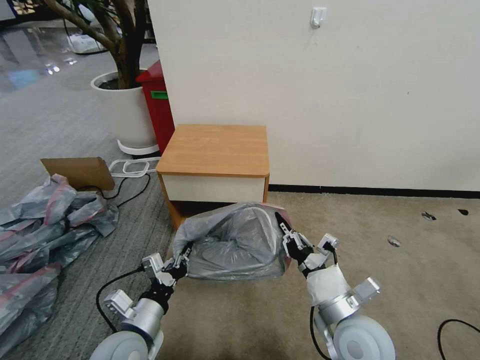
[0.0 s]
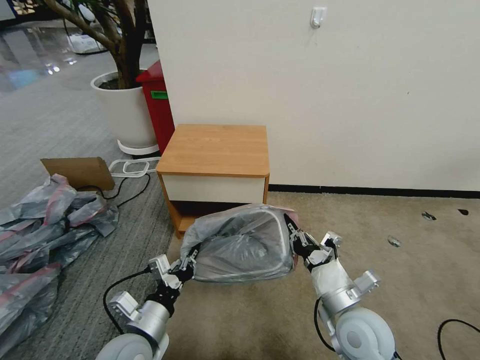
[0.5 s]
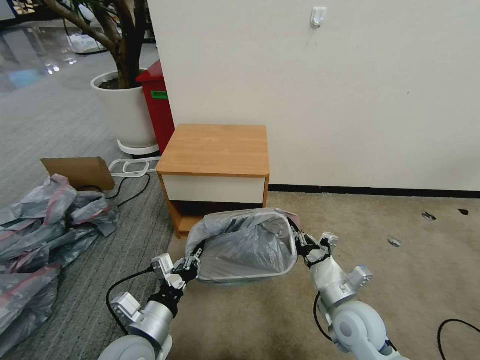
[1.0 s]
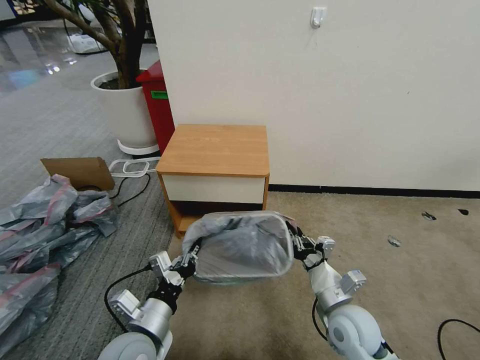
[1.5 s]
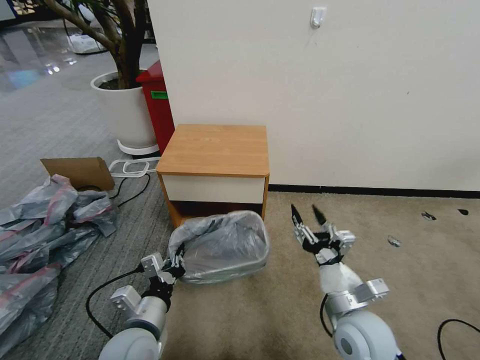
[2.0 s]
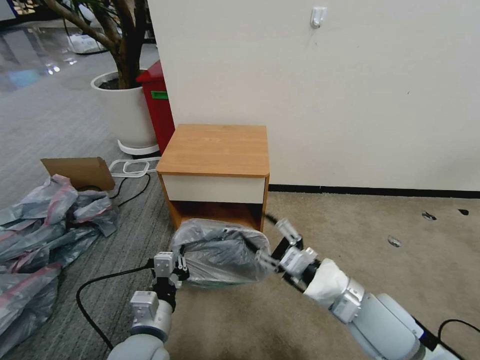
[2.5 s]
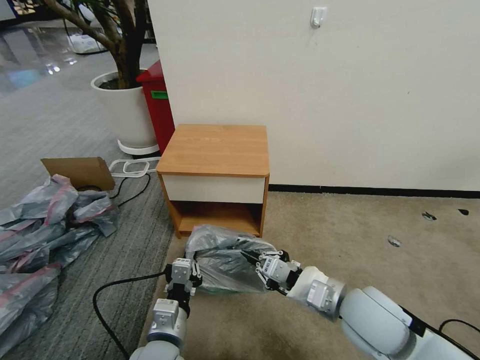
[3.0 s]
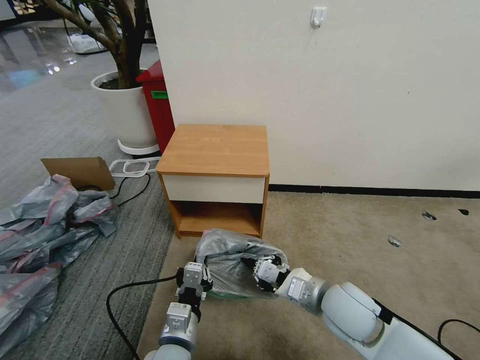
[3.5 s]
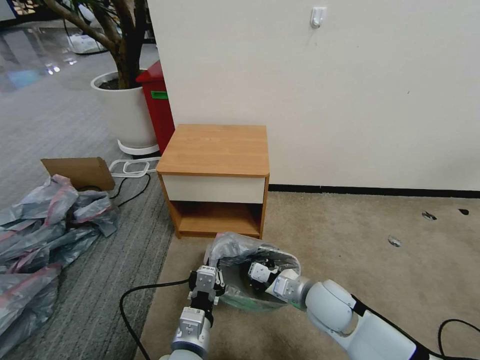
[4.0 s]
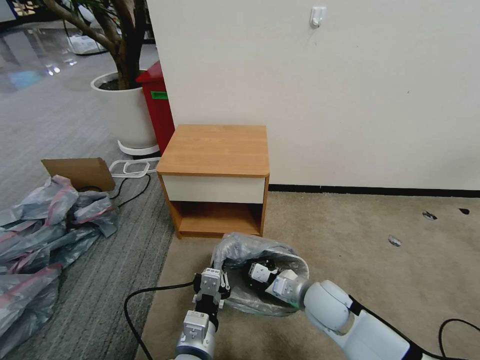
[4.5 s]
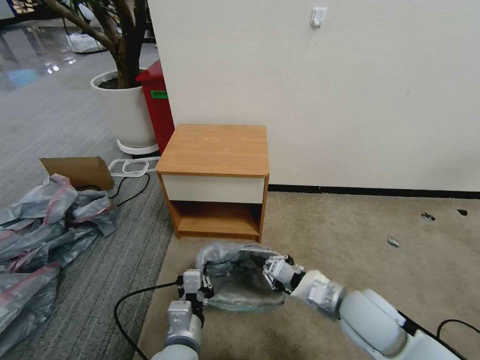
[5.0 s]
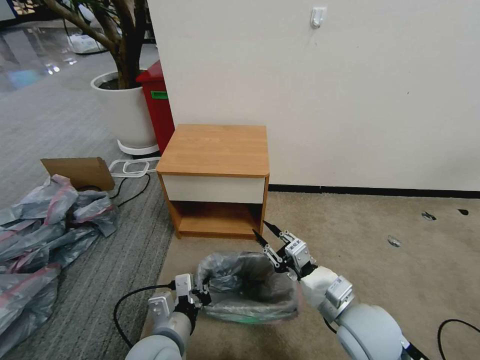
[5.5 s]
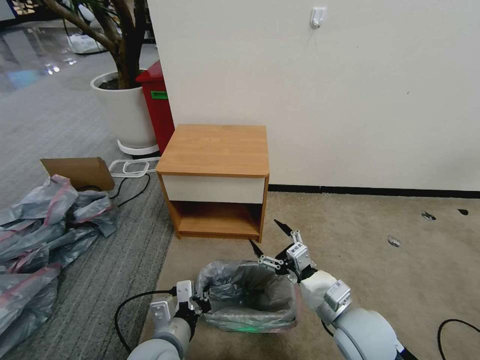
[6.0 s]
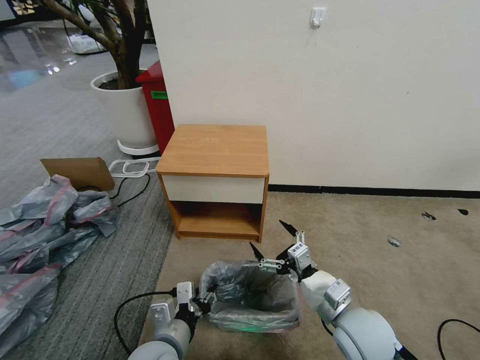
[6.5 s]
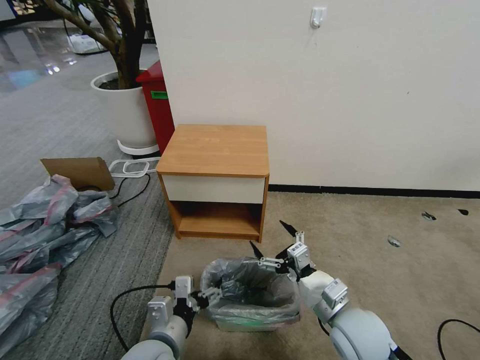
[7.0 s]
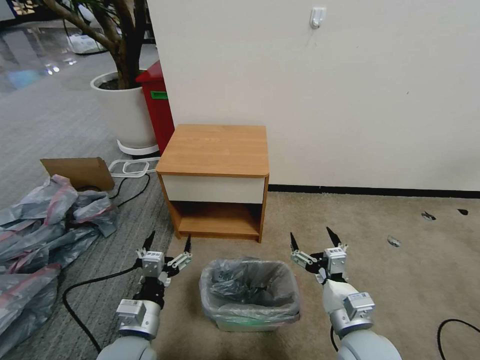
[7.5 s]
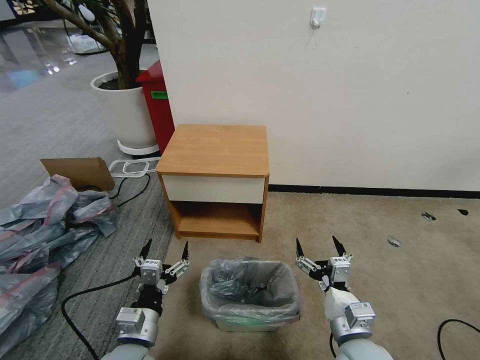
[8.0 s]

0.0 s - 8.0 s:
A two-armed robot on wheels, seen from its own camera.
Task of the whole recording: Pick up the garbage bag from the table and place it over the trash can.
0.0 s - 2.0 s: The right gripper opens its fingers.
2.0 s - 4.0 s: The right gripper moves forward, roughly 5 cm, goes upward and returns, approximately 5 cm each way, and closes up; the left gripper shifts roughly 10 cm to the right.
4.0 s - 6.0 s: The left gripper travels to the left by some 5 cm. The right gripper moves backward, about 5 cm, and opens.
6.0 s - 8.0 s: The left gripper goes about 5 cm to the left, and opens its fingers. The right gripper moves some 5 cm.

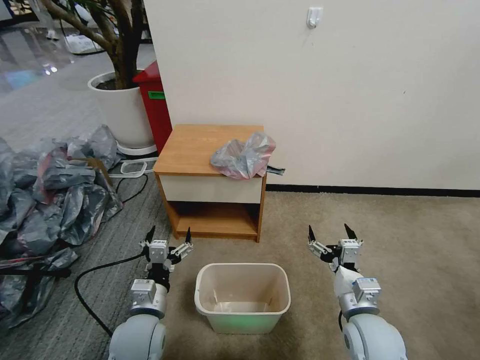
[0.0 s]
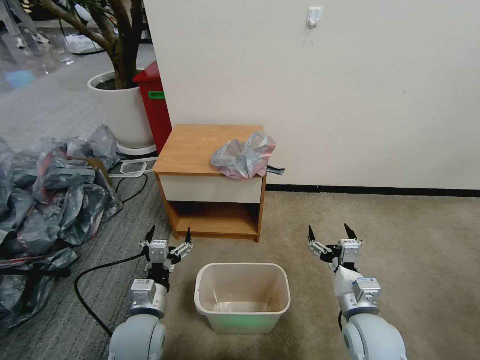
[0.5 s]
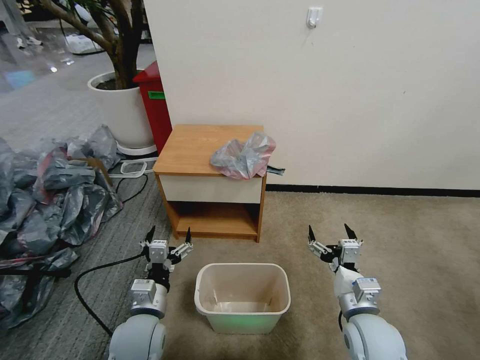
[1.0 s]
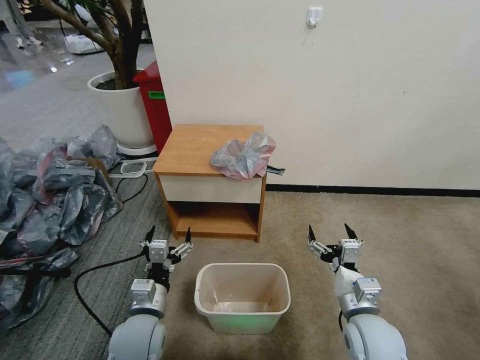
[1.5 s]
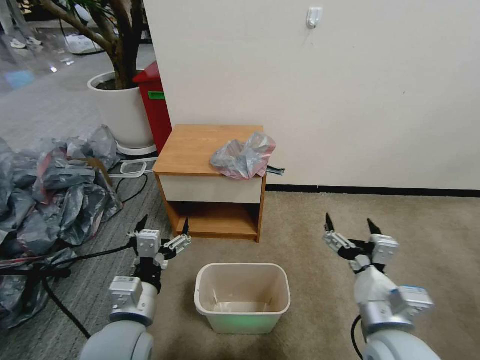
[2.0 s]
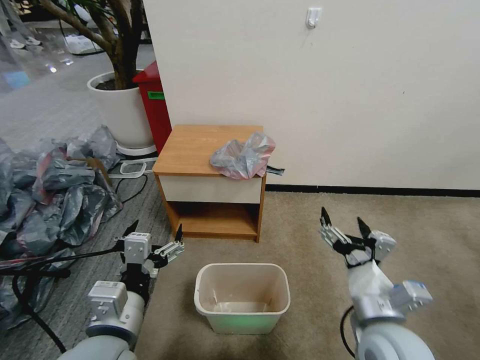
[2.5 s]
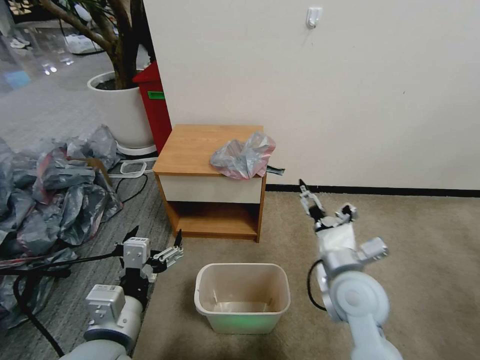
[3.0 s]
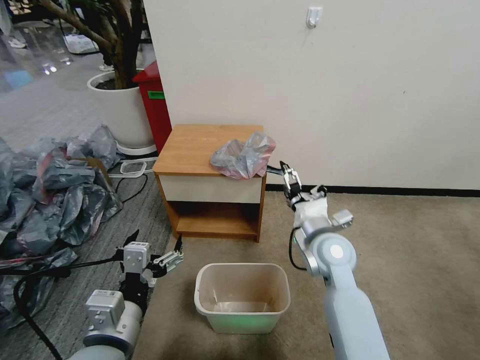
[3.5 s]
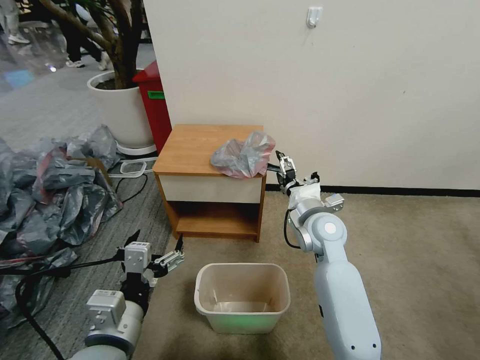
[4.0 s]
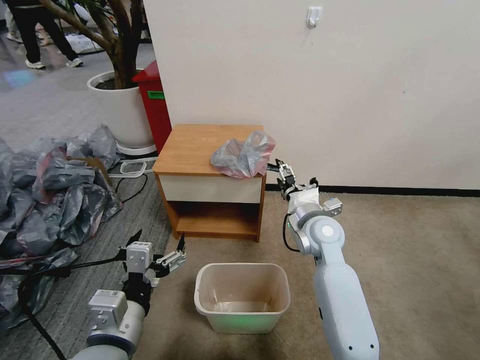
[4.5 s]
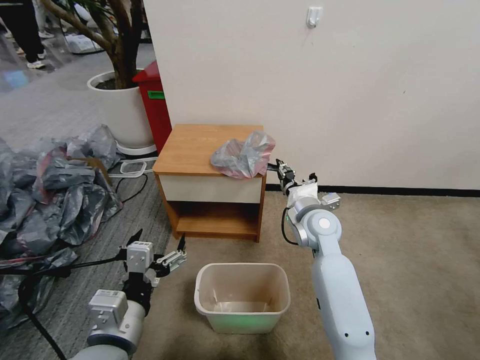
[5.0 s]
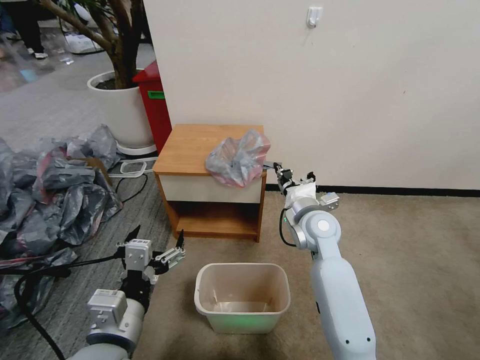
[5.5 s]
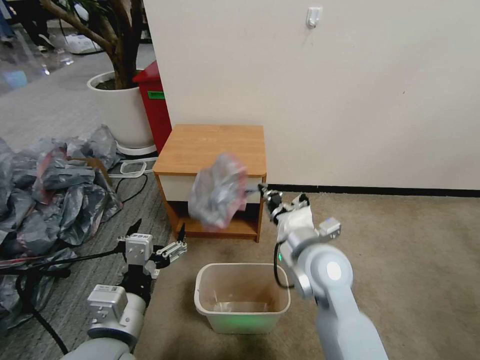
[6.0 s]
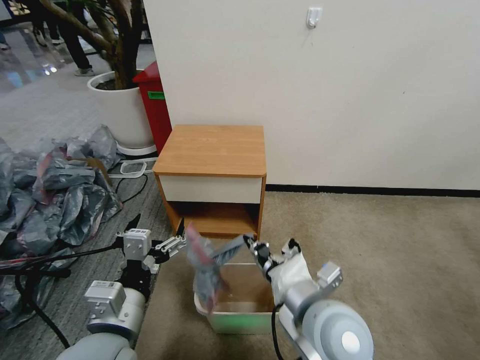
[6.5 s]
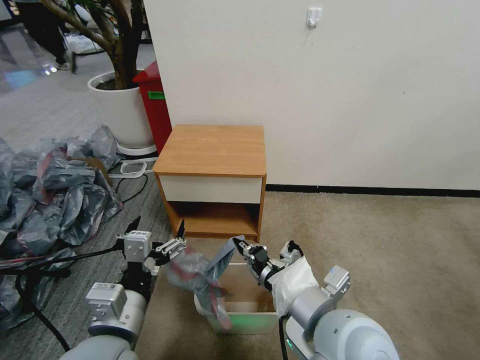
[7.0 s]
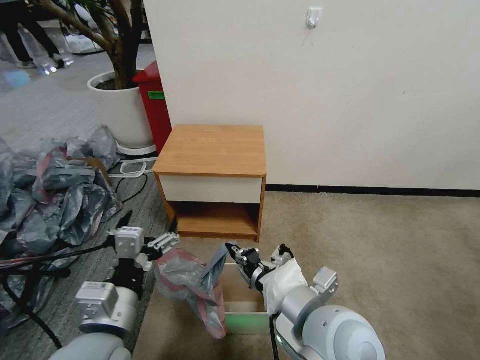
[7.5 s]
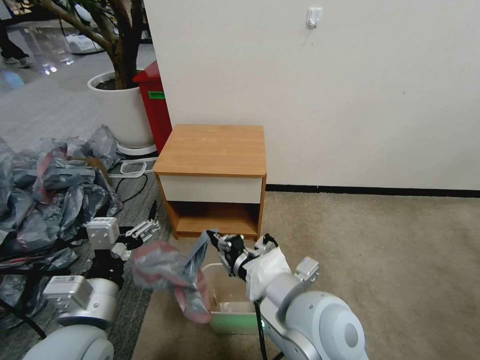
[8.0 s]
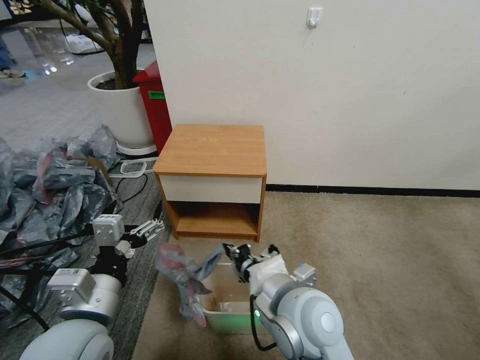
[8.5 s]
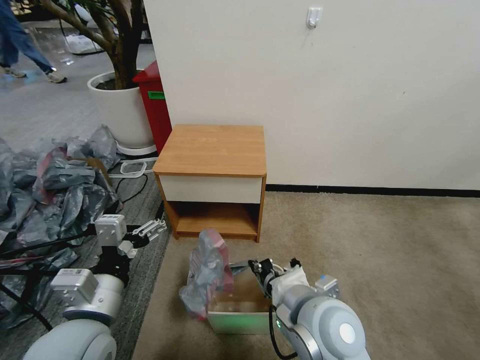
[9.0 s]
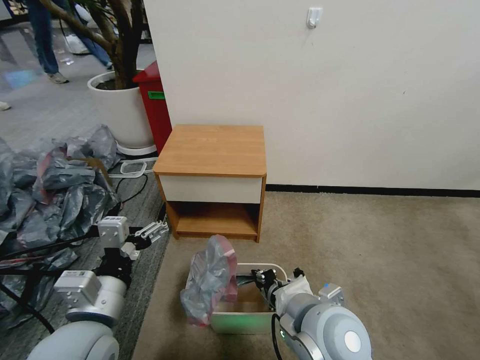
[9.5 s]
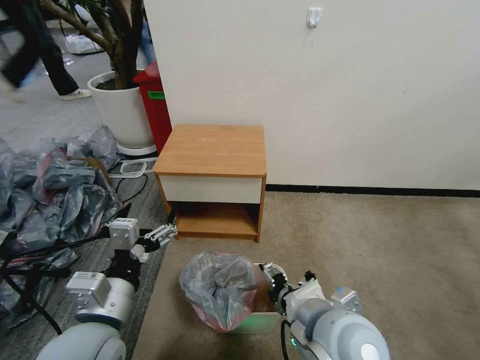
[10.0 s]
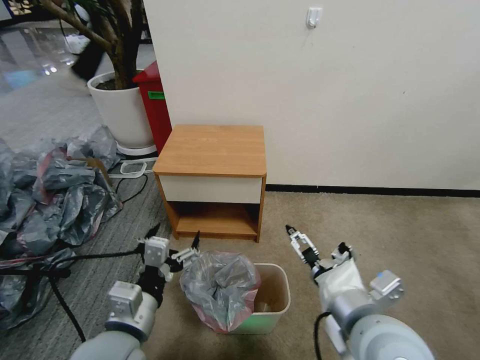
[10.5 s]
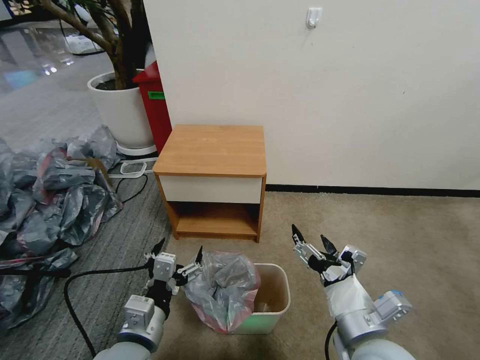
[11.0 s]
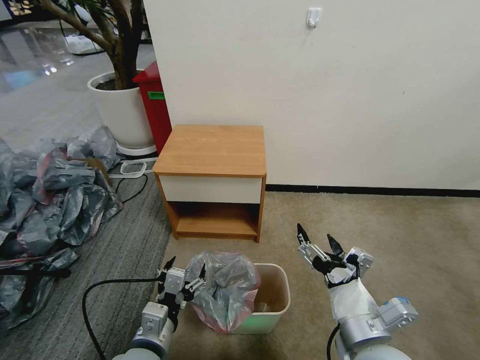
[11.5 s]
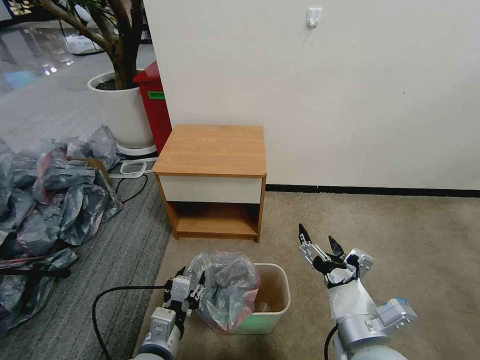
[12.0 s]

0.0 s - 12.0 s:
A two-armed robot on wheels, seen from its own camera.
Task of the whole recording: Pick up the garbage bag from the table and place it over the trash can.
2.0 s - 4.0 s: The left gripper moves roughly 5 cm. The right gripper moves forward, some 25 cm.
4.0 s - 6.0 s: The right gripper travels backward by approximately 10 cm, and closes.
6.0 s - 8.0 s: The right gripper shifts roughly 10 cm backward.
8.0 s - 10.0 s: The right gripper ends up roughly 5 cm from where it was, and opens.
10.0 s - 12.0 s: The right gripper goes roughly 10 cm to the right and downward, while the left gripper moves downward, roughly 15 cm, and closes.

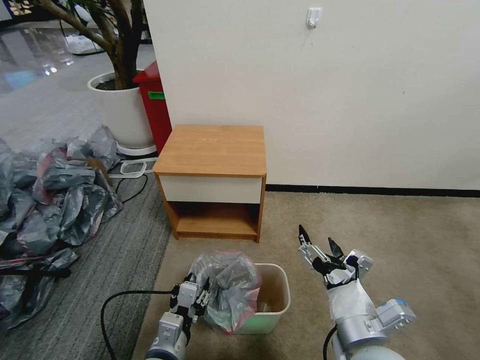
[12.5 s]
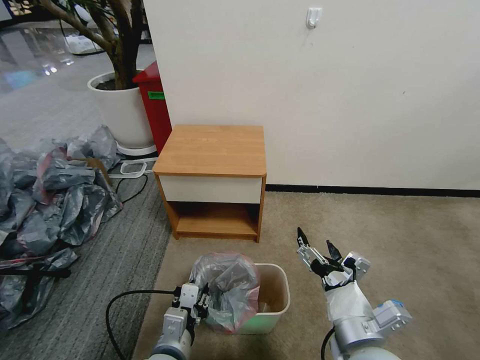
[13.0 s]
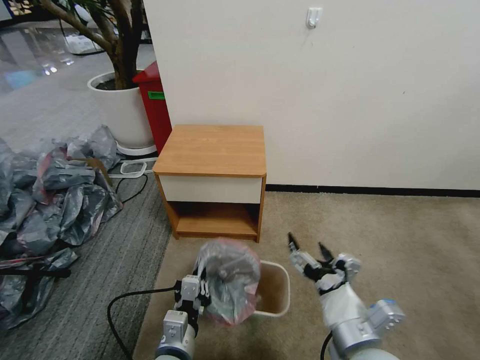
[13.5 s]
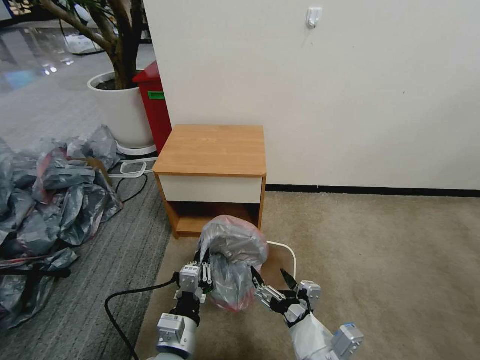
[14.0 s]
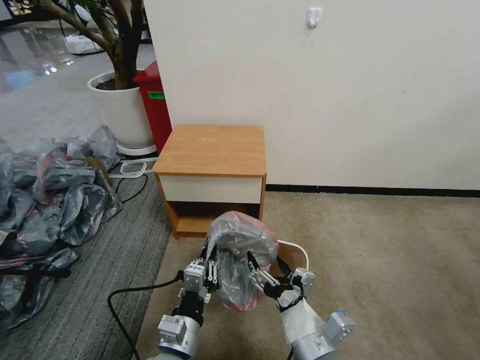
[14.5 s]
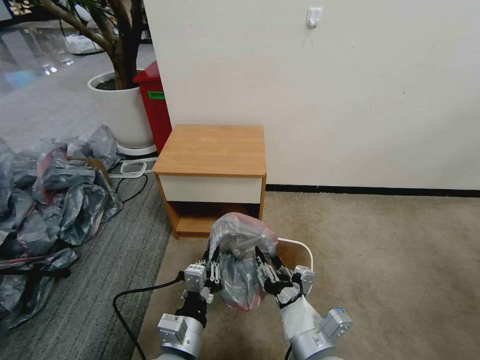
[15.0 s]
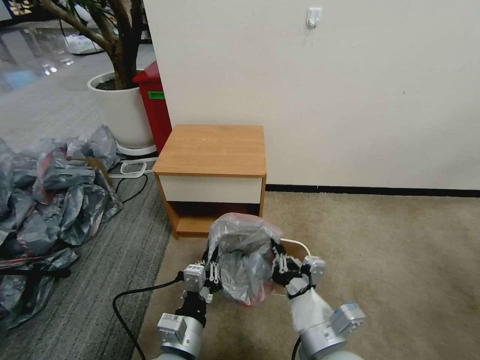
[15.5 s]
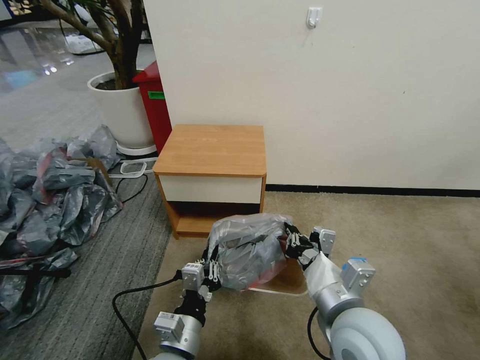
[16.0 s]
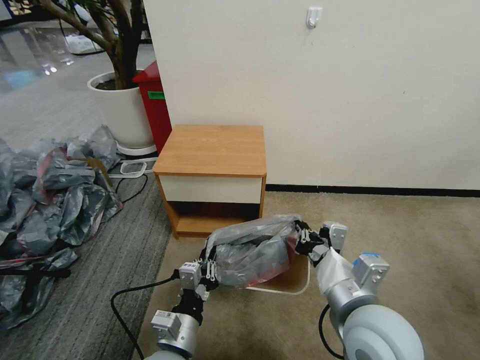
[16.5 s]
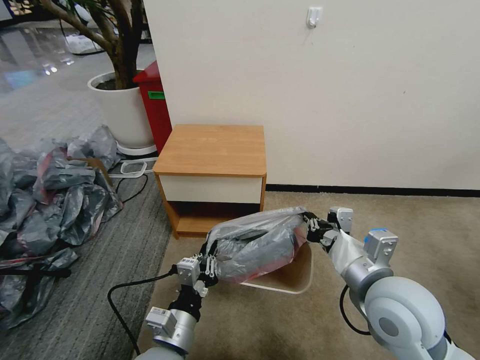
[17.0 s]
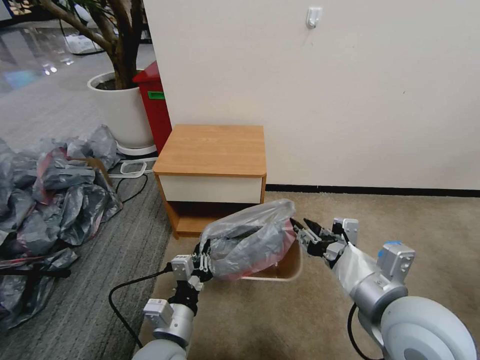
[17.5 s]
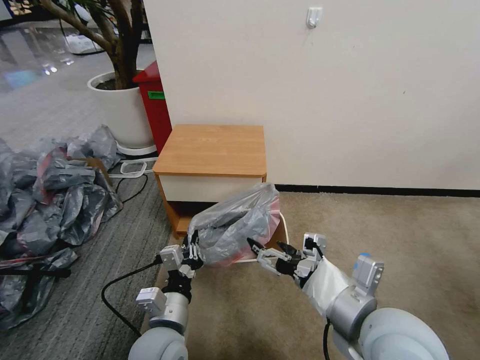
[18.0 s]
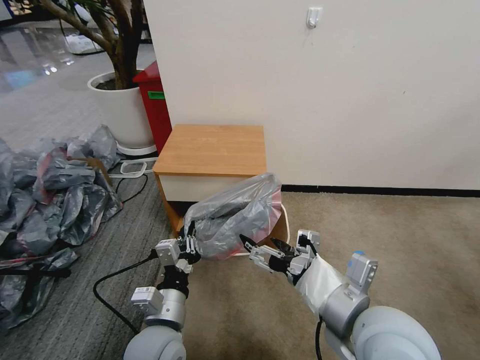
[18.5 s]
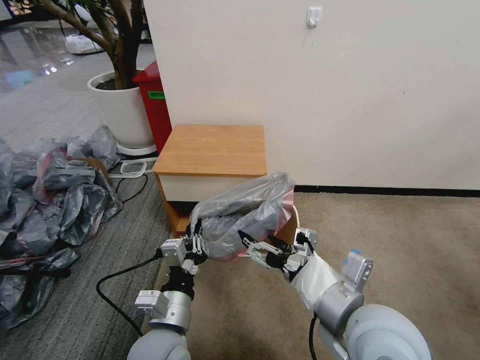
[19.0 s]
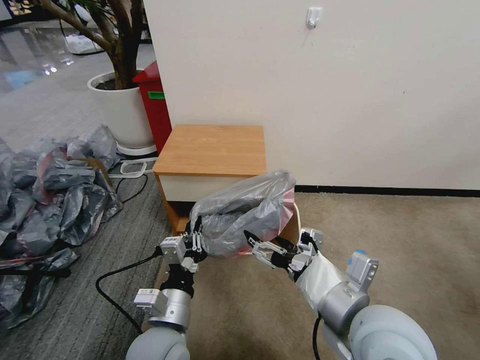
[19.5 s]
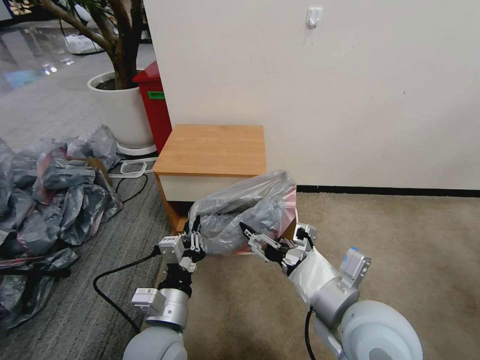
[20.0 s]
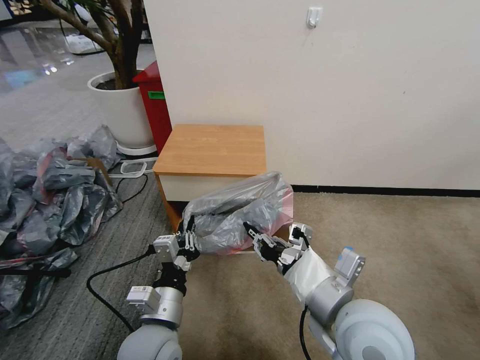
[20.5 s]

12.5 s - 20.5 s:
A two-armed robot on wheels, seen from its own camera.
Task of the whole recording: Pick up the garbage bag from the table and place it over the trash can.
12.5 s - 14.5 s: The left gripper closes its fingers. Meanwhile the right gripper shifts roughly 5 cm to the left.
14.5 s - 16.5 s: The right gripper goes some 10 cm upward and forward, and closes.
16.5 s - 18.5 s: The right gripper opens.
18.5 s - 20.5 s: The right gripper closes.
